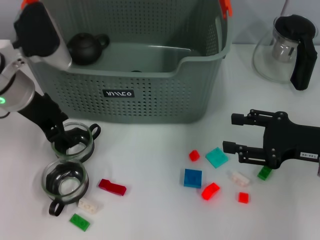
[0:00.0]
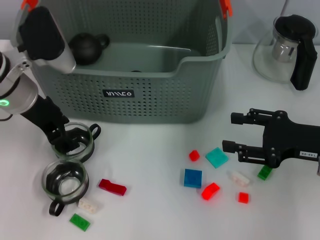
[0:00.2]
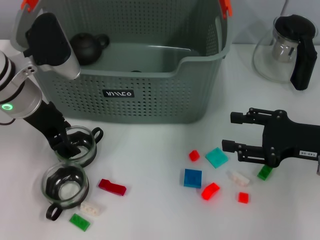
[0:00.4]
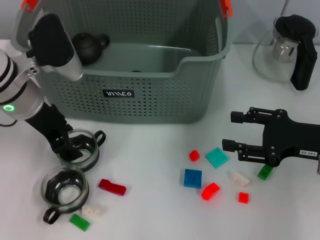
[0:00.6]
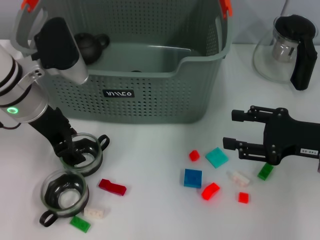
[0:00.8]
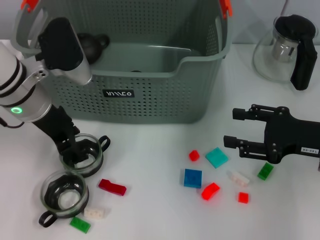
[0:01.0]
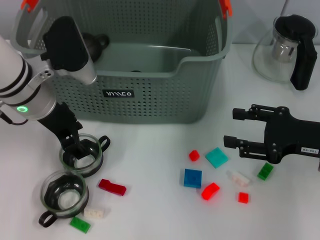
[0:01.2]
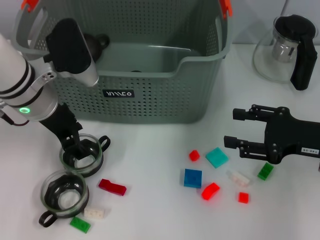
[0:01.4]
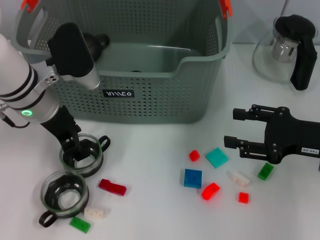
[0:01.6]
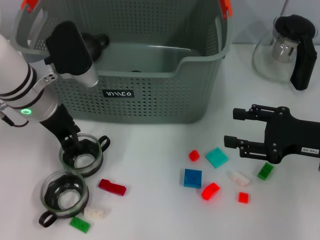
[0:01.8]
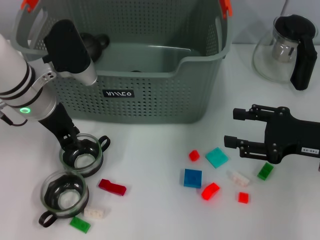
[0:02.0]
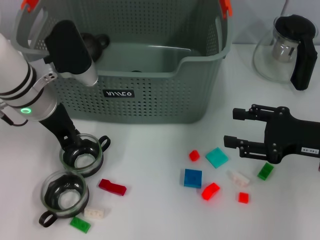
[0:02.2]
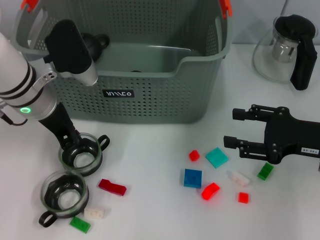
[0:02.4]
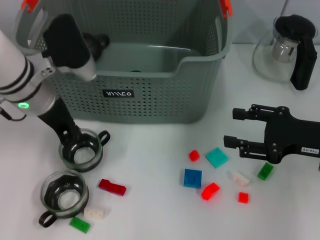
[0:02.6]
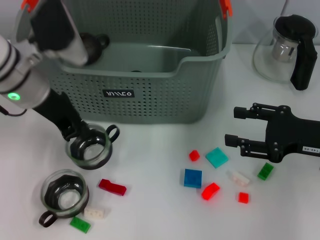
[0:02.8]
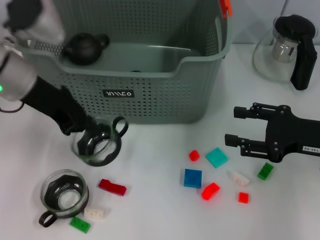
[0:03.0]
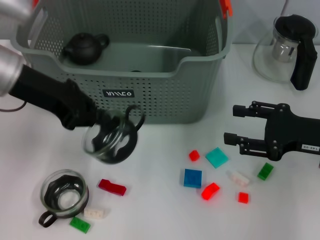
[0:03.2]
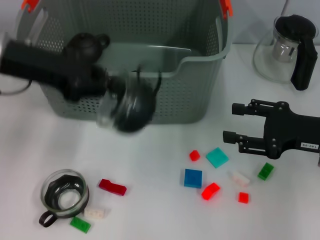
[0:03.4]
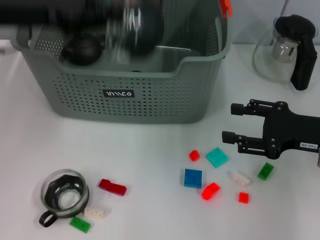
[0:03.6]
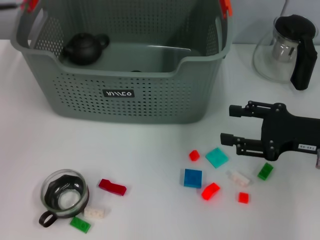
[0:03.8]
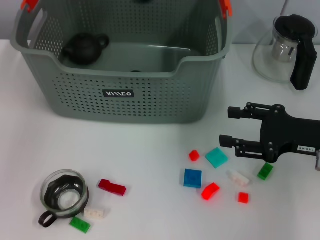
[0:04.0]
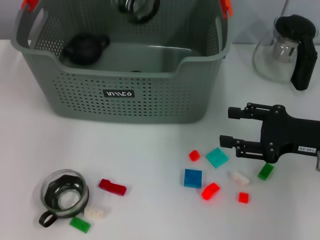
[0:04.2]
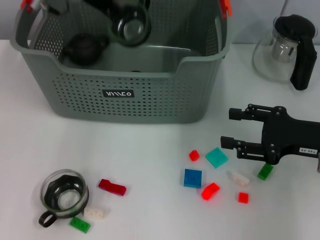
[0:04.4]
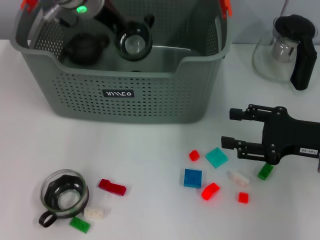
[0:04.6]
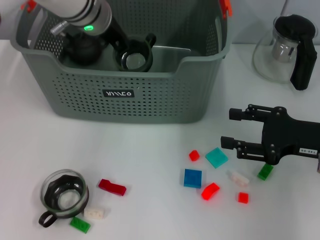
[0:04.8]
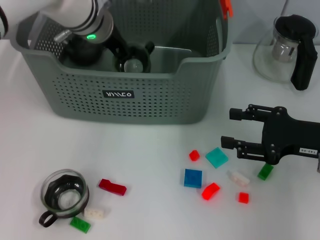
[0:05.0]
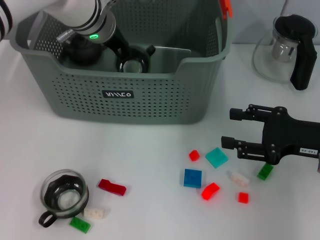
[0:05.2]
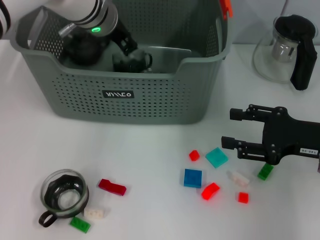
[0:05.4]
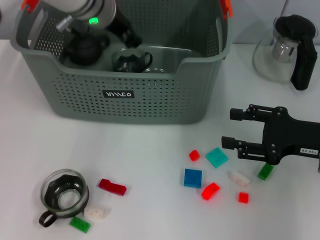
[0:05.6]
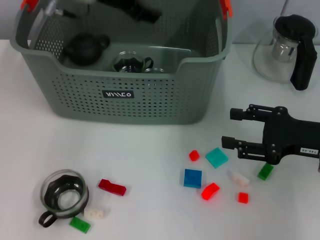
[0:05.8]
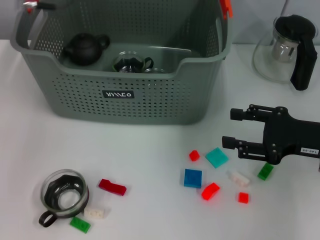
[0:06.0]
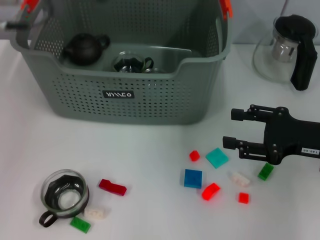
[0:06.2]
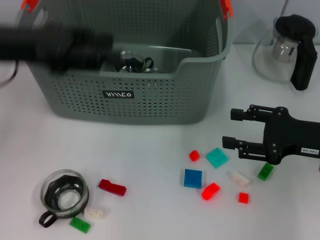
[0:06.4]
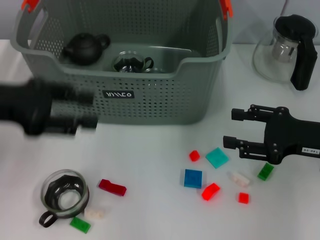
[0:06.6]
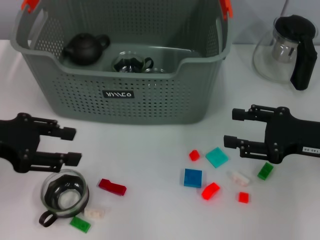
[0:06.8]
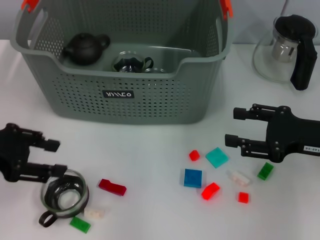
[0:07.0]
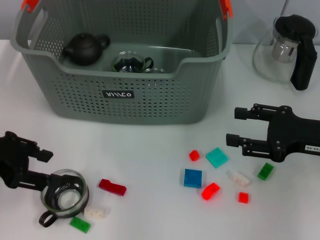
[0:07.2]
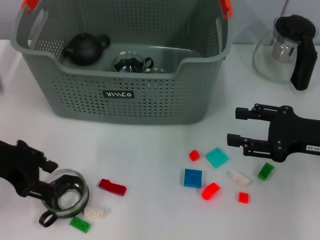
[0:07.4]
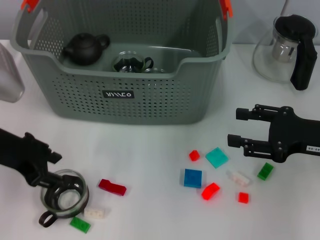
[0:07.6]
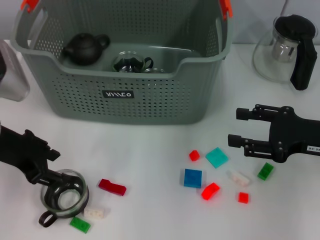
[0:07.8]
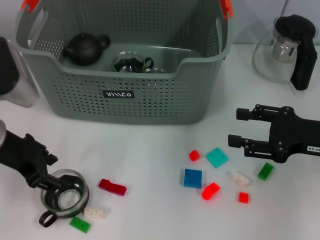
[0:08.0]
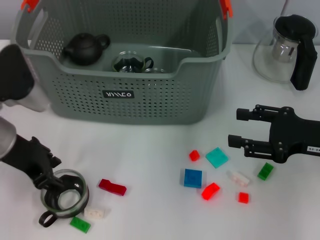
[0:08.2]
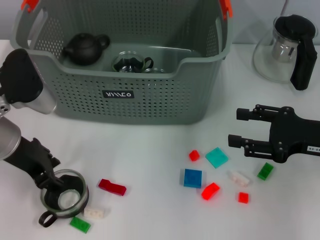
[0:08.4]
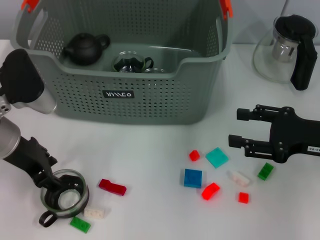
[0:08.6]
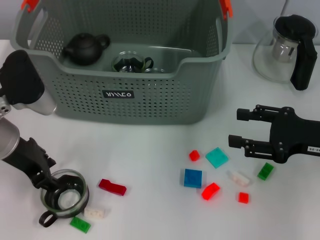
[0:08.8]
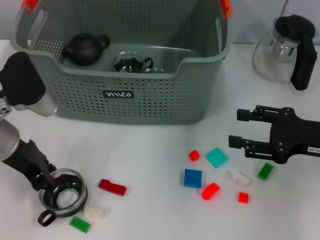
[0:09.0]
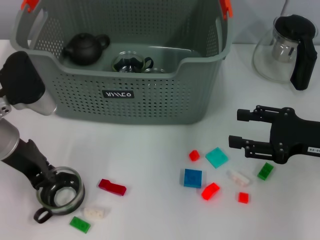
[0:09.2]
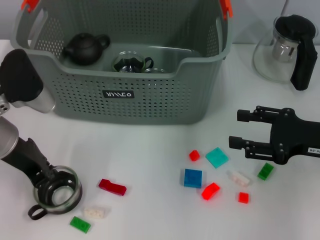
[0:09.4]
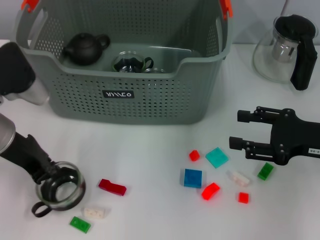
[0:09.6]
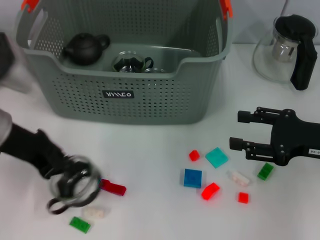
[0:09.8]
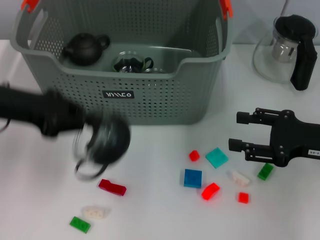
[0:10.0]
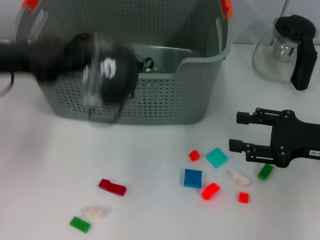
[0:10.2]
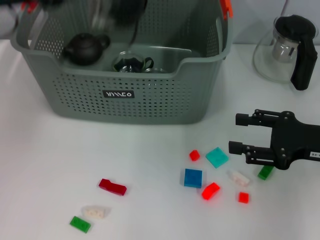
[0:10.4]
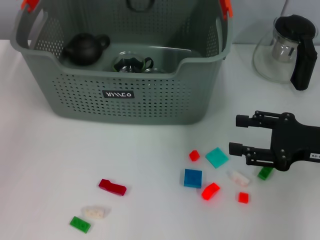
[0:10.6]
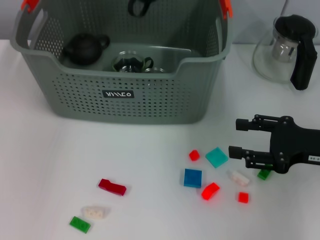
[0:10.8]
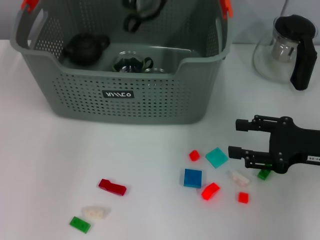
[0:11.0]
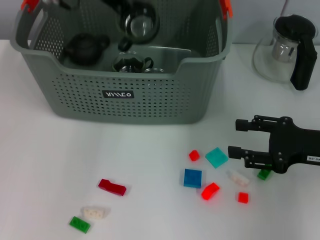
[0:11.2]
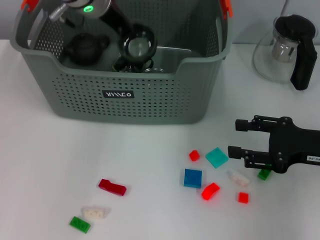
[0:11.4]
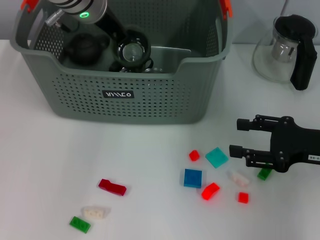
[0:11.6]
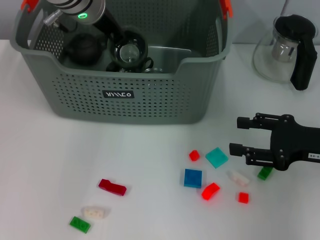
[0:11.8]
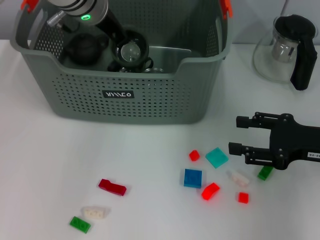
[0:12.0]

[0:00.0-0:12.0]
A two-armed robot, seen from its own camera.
Task of the whole recording: pick up the teacup on the table and place it into the storage bin, pick up the block on the table and place it into the storage bin.
Step, 0:00.0 to 0:02.4: Grasp the cup with left gripper.
Step, 0:02.6 to 0:05.2: Place the cup in the storage box with left gripper.
Step, 0:05.4 to 0:09.2: Grasp the cup with left gripper.
0:00.0 to 0:01.6: The grippers stay close to where they were, moving slightly.
0:01.6 to 0:03.0: The left gripper changes place by roughly 5 cm, and closes.
0:03.0 to 0:04.4: The left gripper travels forward, to the right and upward by approximately 15 cm.
0:04.4 to 0:06.0: The left gripper moves approximately 5 cm downward and comes back, and opens up.
0:06.0 to 0:07.6: The left gripper moves backward, downward and to the left, some 20 cm.
0:07.6 to 0:09.0: The grippers stay close to where they were, moving slightly.
0:09.0 to 0:10.4: The left gripper heads upward, covering about 15 cm, and closes up.
0:10.4 to 0:12.0: The left gripper shifts about 15 cm to the right and forward.

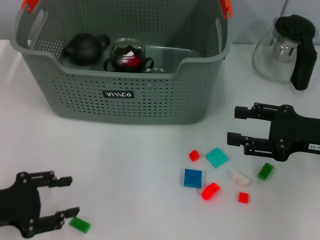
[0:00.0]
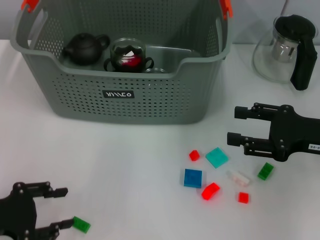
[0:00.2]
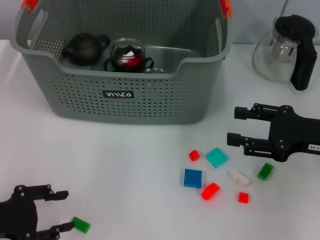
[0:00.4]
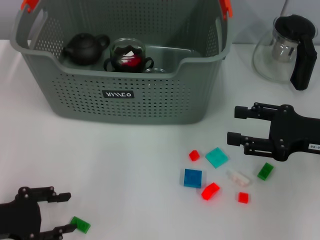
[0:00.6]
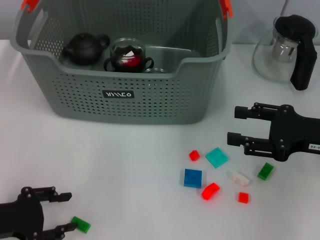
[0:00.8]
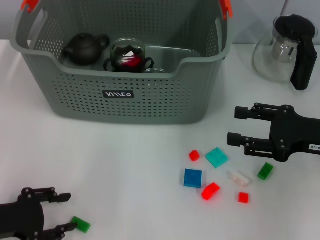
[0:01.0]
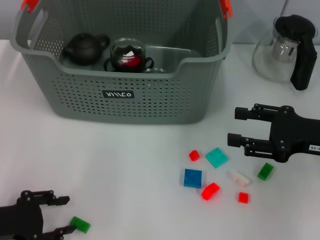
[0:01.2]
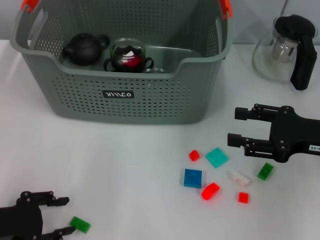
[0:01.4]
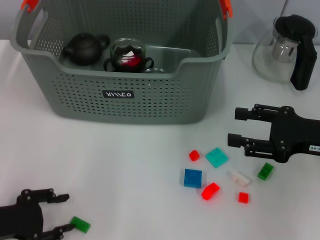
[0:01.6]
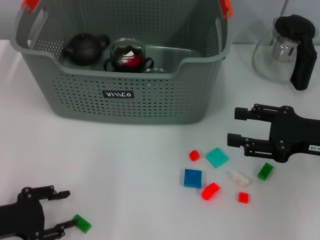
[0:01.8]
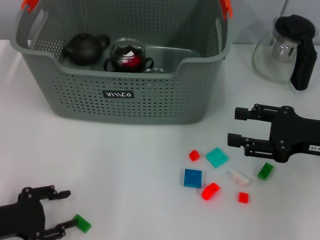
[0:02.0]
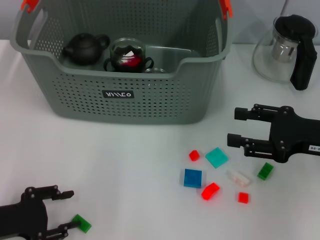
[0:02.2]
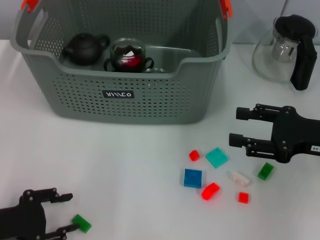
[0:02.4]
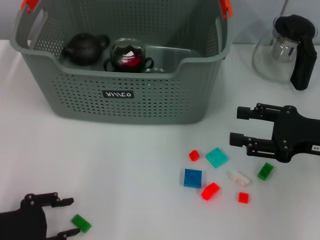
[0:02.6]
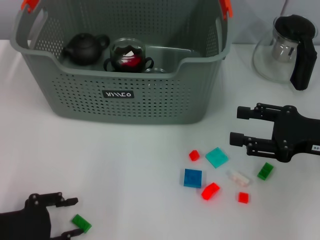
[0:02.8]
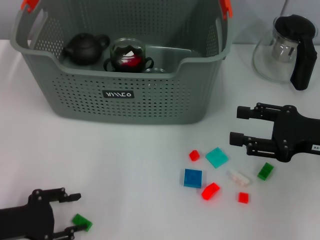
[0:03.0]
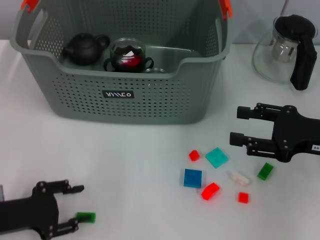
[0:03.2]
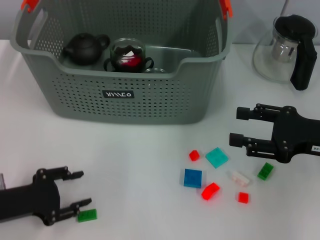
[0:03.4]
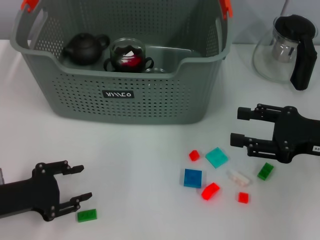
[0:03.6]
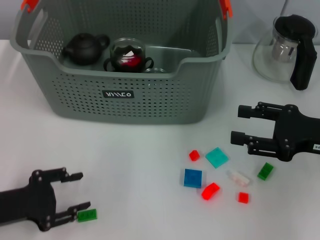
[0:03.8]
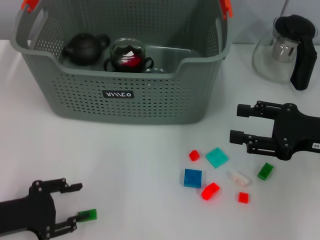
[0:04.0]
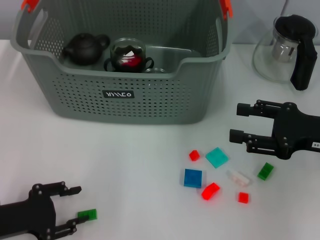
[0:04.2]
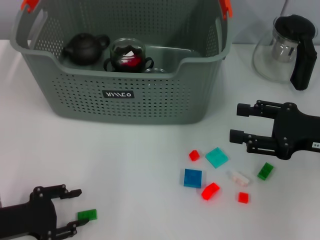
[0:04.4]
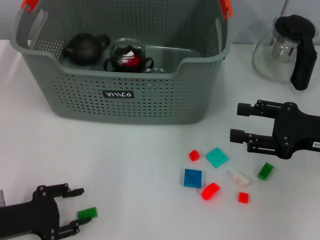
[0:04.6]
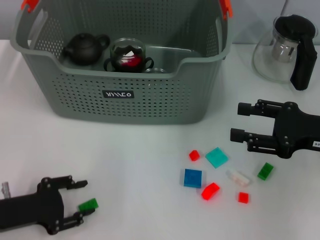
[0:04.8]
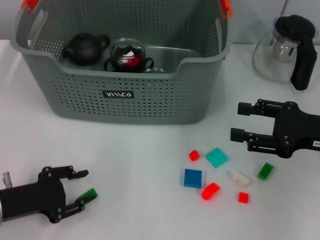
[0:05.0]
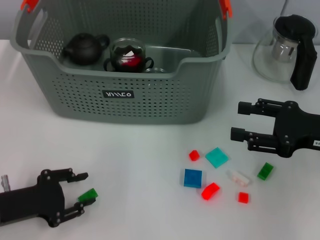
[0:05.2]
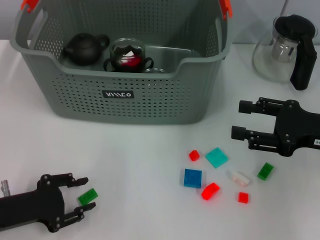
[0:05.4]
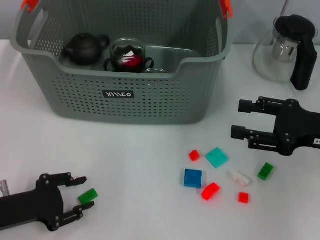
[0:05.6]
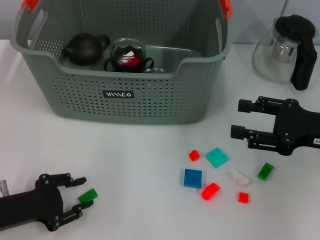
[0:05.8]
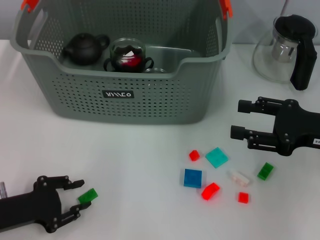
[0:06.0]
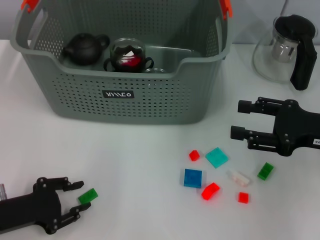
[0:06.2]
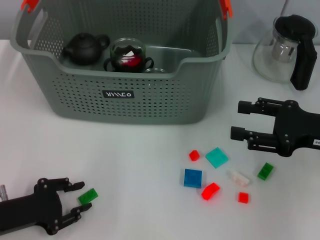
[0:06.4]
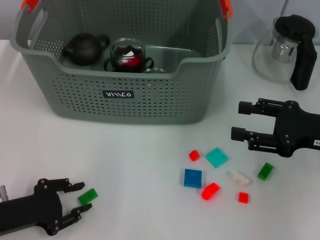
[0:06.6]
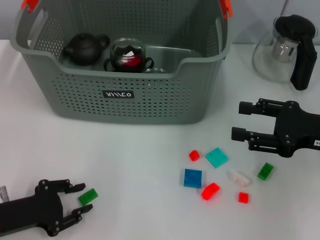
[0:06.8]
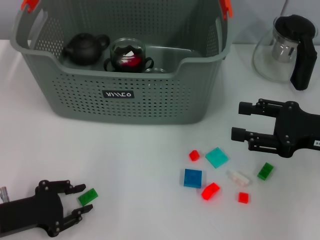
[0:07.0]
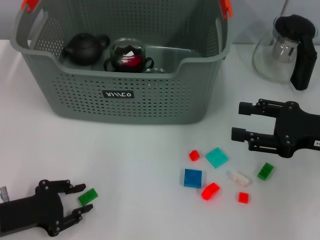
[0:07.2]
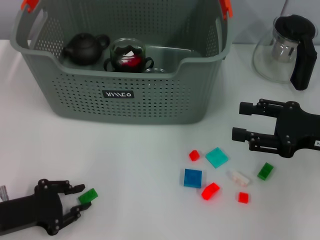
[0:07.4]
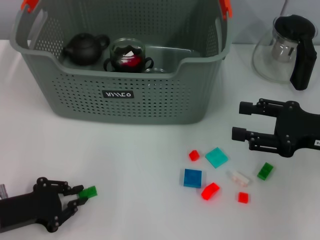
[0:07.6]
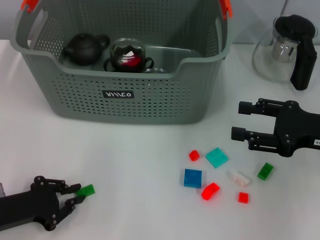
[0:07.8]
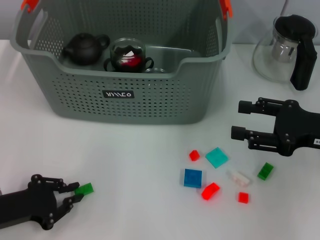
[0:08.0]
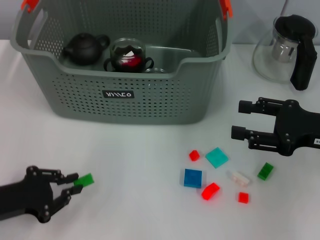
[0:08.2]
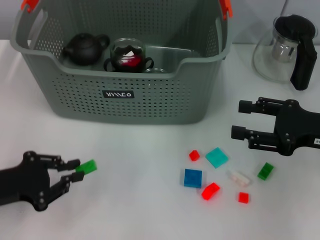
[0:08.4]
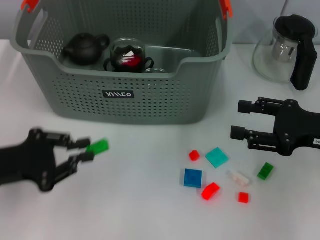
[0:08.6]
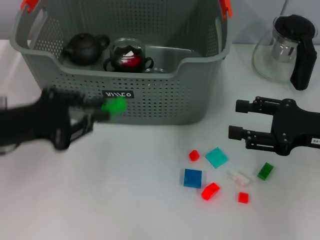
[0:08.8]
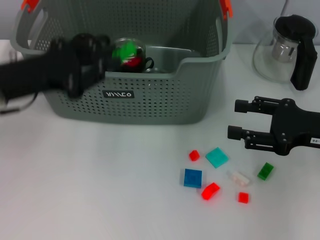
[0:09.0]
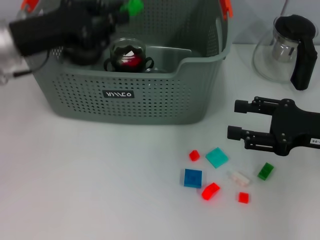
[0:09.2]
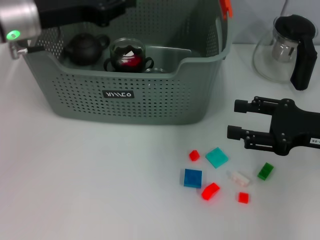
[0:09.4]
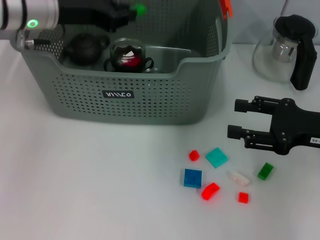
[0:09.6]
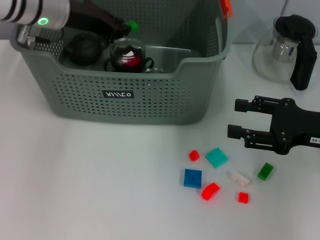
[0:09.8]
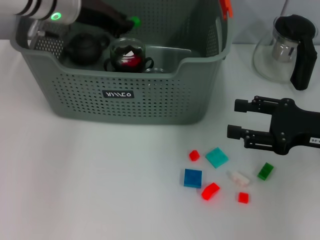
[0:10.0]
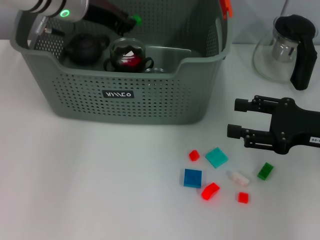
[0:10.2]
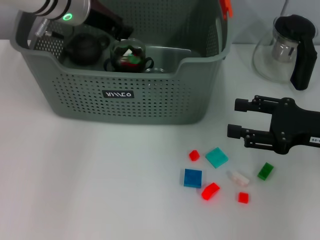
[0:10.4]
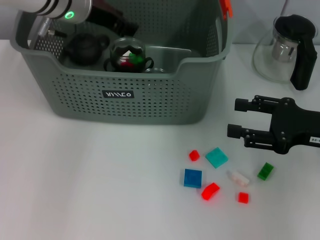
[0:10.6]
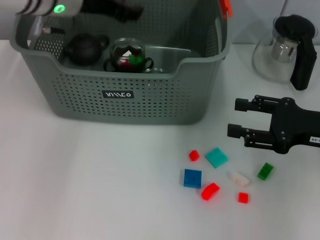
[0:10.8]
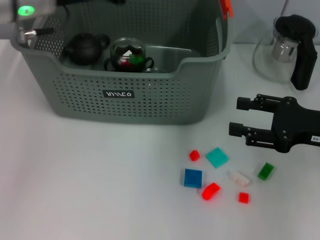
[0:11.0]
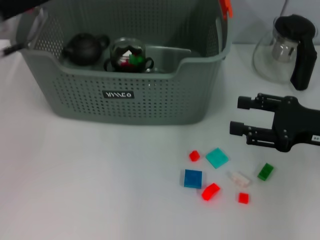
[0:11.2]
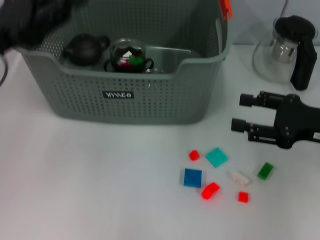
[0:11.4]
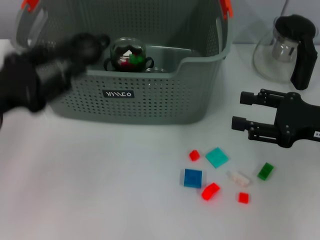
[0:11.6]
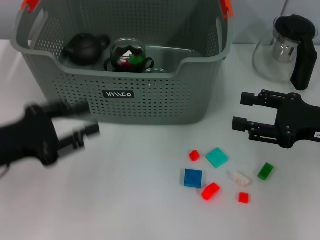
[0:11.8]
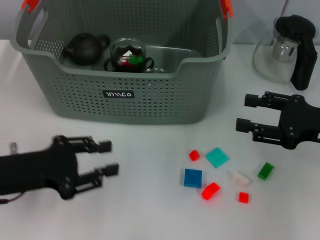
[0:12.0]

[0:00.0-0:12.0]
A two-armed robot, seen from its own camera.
Task of the whole recording: pick up the teacup on the table and place it into the storage bin, pick up the block on the table and place it into the storage bin.
Step, 0:00.0 to 0:07.8: Grasp the green block with left gripper.
Step, 0:08.0 to 0:10.4: Place the green block in the storage box with left gripper.
0:00.0 to 0:06.0: The grippers stay close to where they were, moving slightly.
0:06.0 to 0:07.6: The grippers move only a little.
0:07.6 to 0:09.0: The left gripper moves upward and forward, about 20 cm.
0:09.0 to 0:10.4: The left gripper moves forward, to the right and upward, roughly 20 cm.
0:10.4 to 0:12.0: The left gripper moves backward, downward and to the left, some 25 cm.
